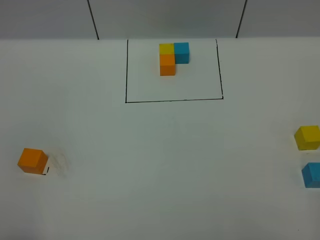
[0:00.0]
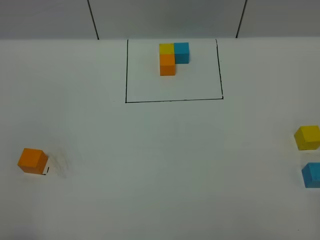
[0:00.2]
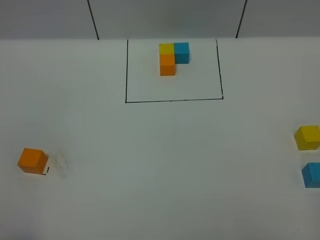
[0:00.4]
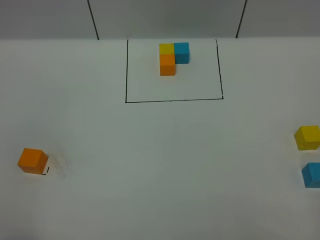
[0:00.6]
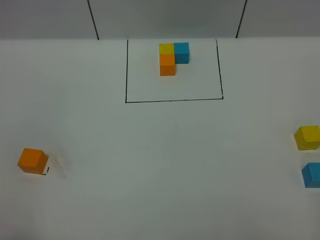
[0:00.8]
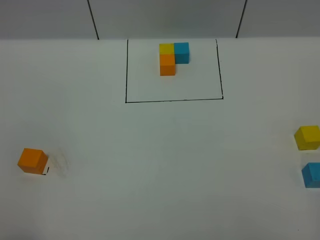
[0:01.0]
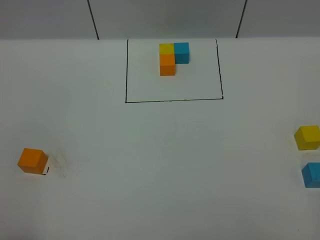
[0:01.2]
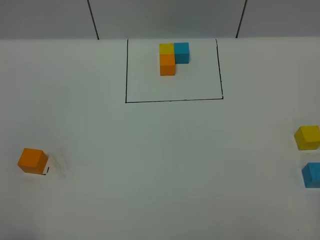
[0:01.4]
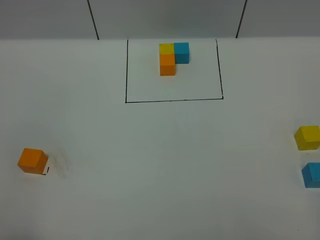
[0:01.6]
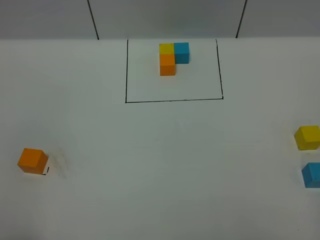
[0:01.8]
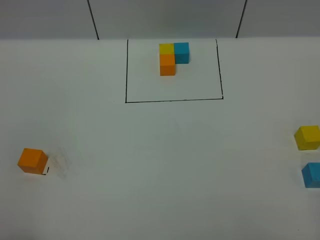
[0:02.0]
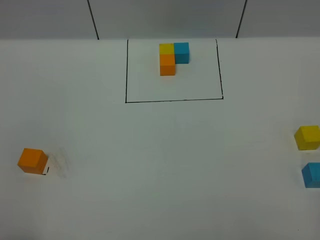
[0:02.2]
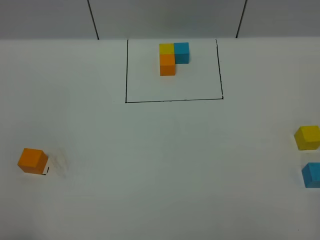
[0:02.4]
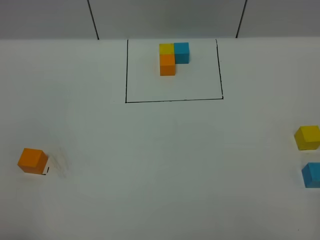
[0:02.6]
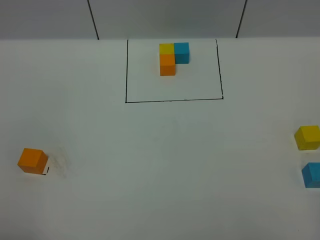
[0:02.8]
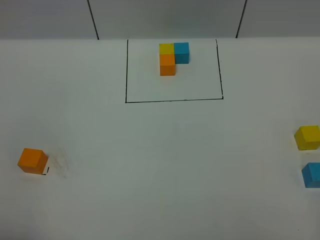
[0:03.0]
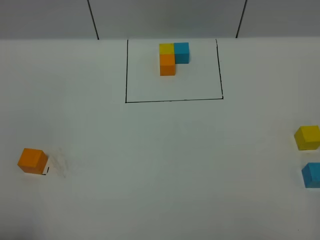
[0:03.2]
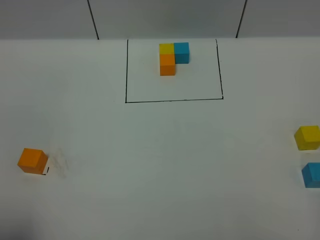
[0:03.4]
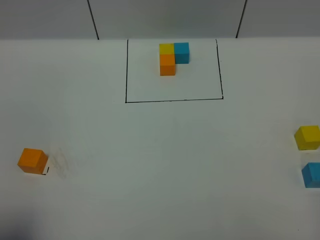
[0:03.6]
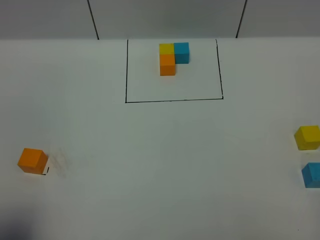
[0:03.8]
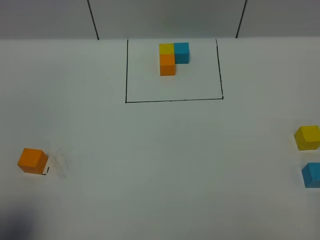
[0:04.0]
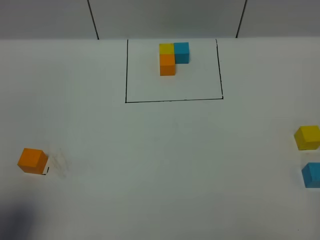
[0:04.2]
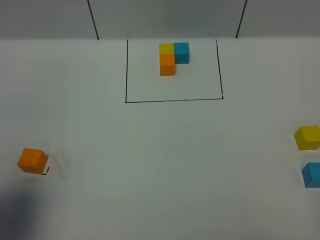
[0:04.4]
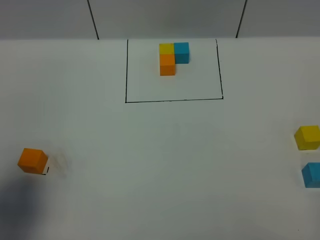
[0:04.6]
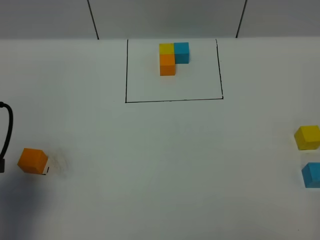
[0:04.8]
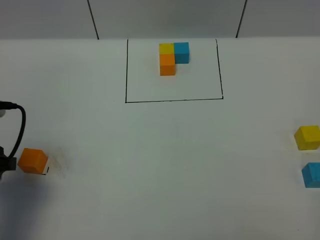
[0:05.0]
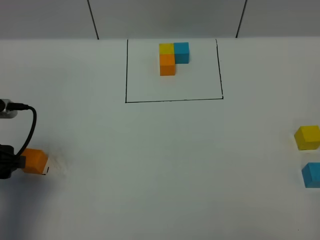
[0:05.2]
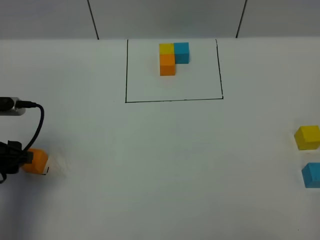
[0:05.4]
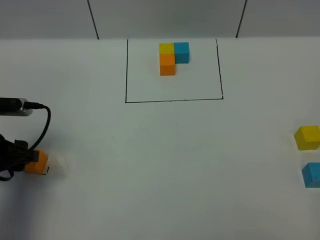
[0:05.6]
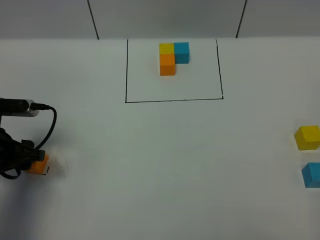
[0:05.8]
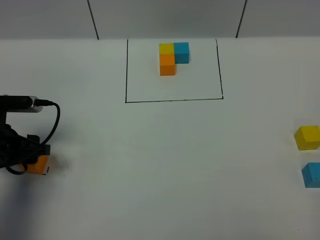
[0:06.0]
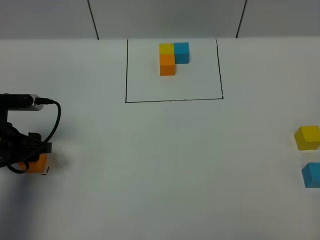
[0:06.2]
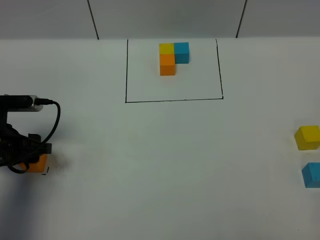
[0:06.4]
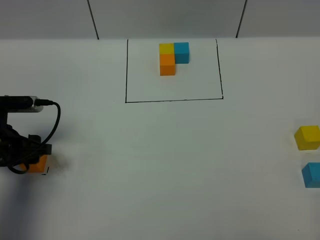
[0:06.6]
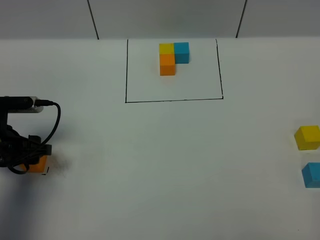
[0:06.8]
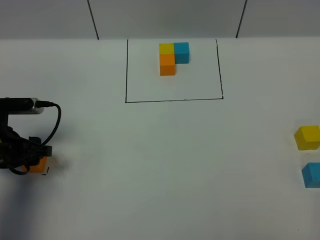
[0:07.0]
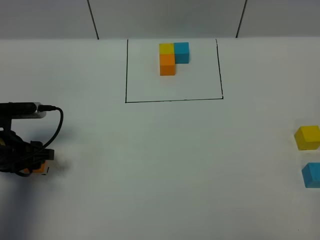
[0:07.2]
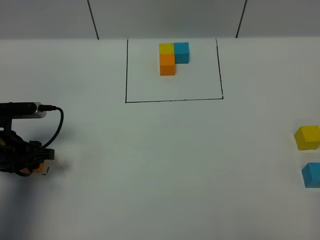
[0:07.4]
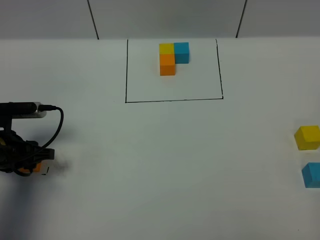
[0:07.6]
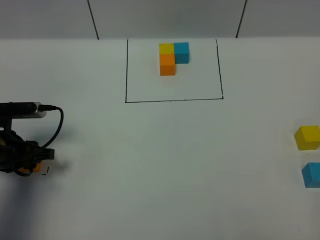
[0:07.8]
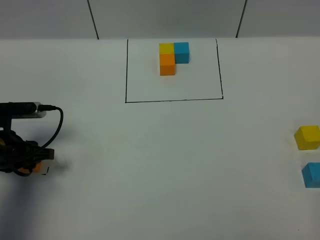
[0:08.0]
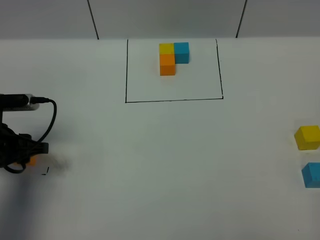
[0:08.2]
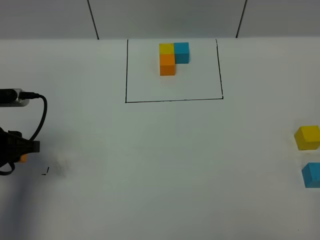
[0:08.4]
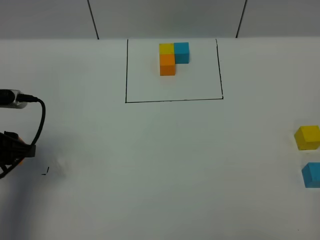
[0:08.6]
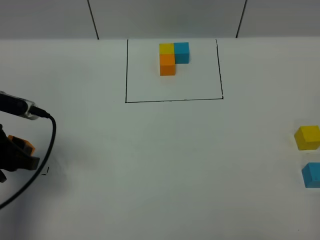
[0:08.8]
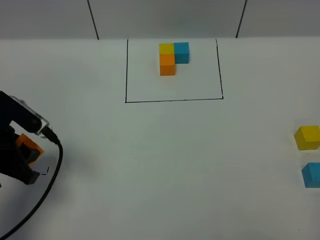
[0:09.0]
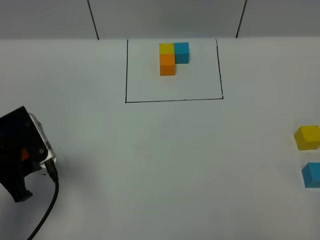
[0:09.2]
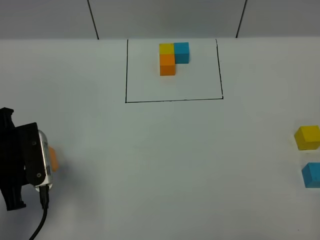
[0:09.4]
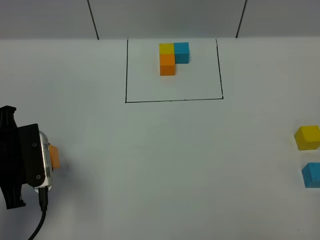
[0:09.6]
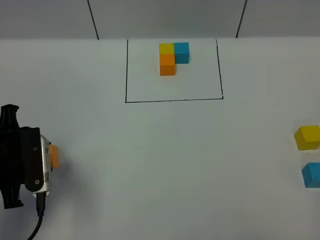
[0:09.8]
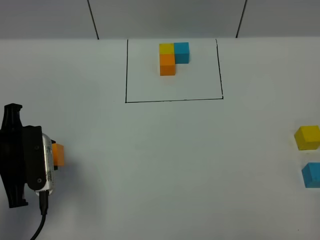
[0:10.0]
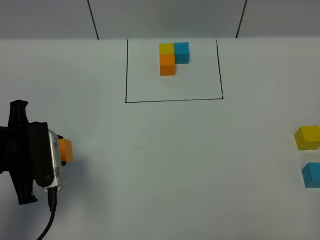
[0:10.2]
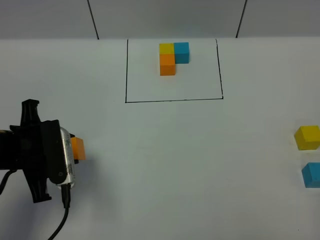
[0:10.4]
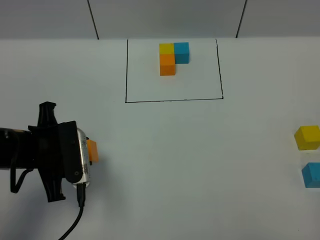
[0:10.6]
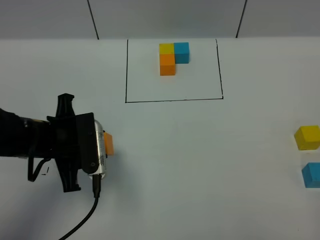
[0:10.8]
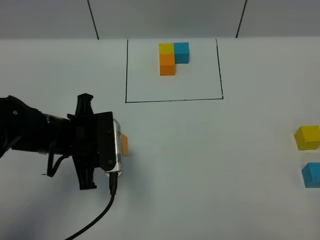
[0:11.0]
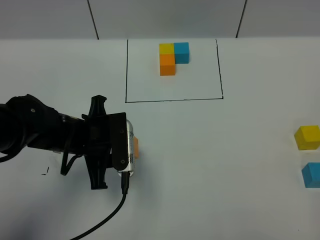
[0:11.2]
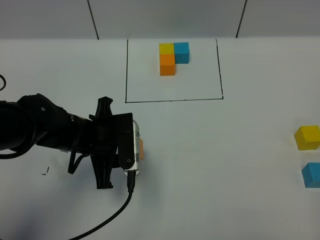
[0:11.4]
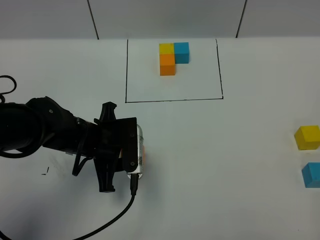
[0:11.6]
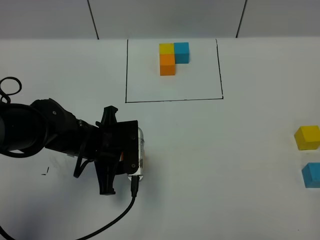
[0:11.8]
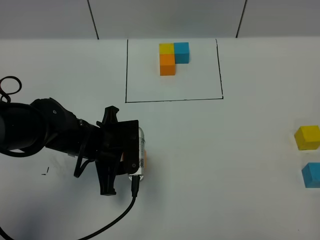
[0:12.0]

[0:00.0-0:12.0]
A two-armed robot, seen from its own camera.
Task of the whole recording: According to the building block template in front, assemble the scattered blocks together.
0:00.0 to 0:01.6: The two grippers keep their place.
0:03.0 to 0:04.4: The left gripper goes about 10 cm forward.
0:04.4 to 0:06.0: The left gripper moves downward and forward, approximately 20 cm.
0:06.0 to 0:07.6: There are only small adjustments of the grippers.
0:07.6 to 0:09.0: The left gripper goes some 10 cm upward.
0:10.4 to 0:12.0: The left gripper moves to the right and downward, roughly 10 cm.

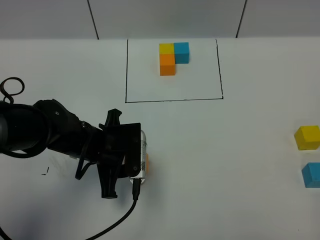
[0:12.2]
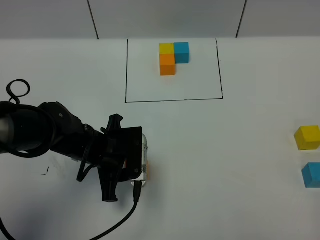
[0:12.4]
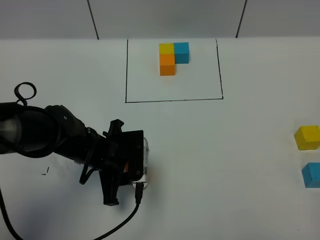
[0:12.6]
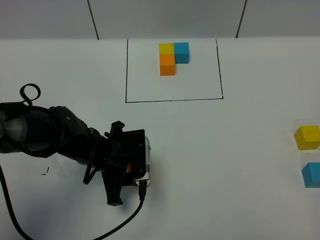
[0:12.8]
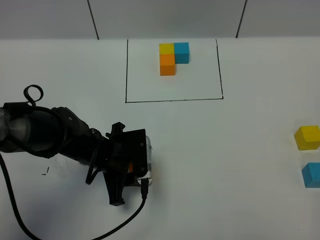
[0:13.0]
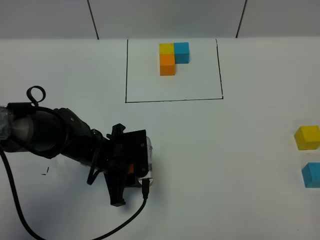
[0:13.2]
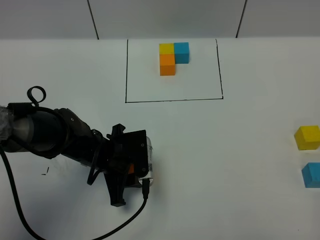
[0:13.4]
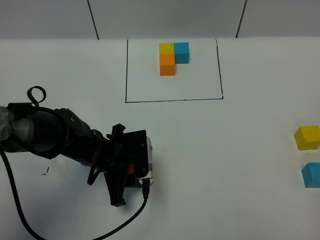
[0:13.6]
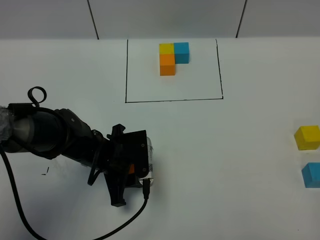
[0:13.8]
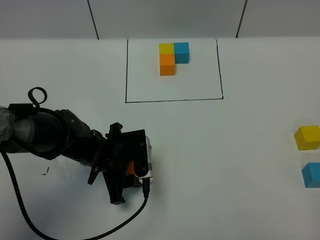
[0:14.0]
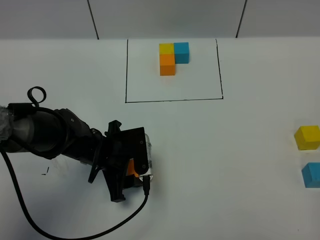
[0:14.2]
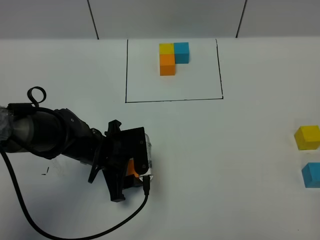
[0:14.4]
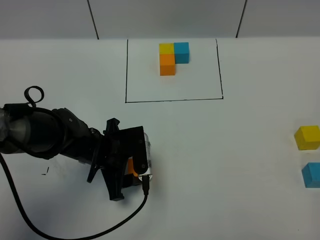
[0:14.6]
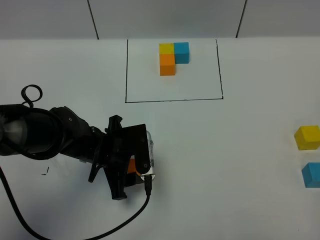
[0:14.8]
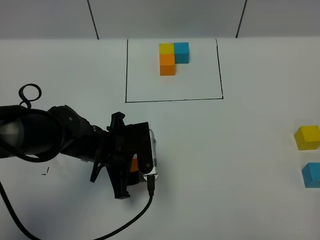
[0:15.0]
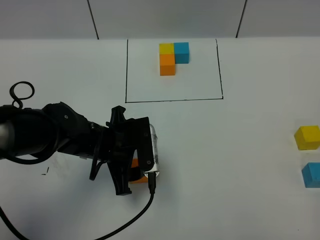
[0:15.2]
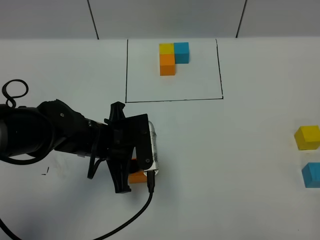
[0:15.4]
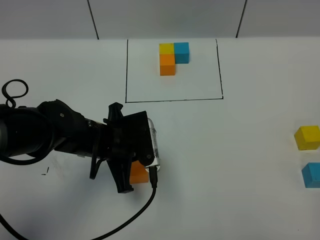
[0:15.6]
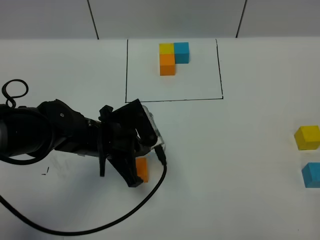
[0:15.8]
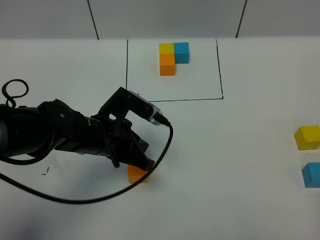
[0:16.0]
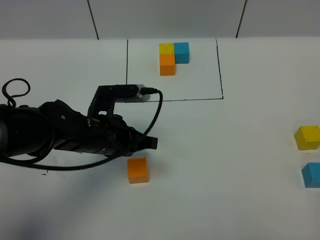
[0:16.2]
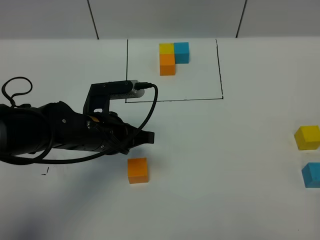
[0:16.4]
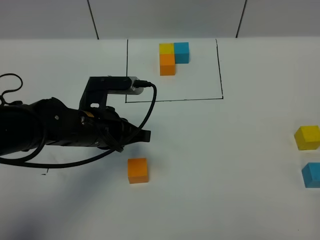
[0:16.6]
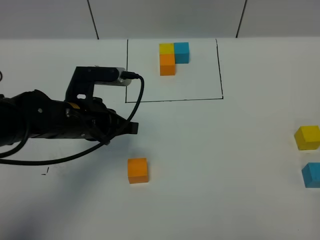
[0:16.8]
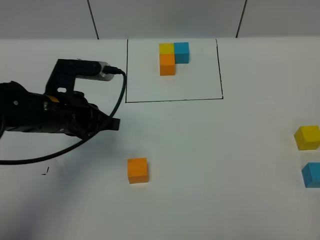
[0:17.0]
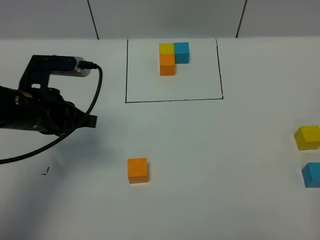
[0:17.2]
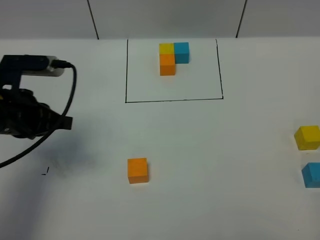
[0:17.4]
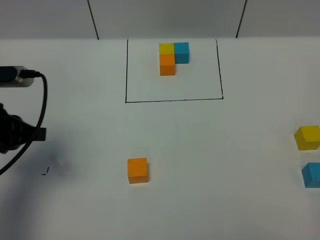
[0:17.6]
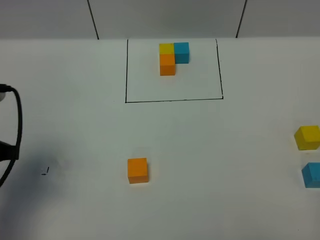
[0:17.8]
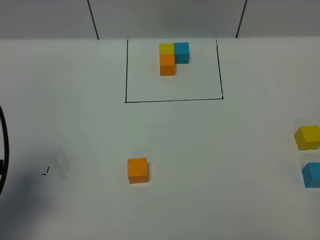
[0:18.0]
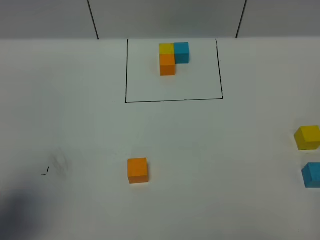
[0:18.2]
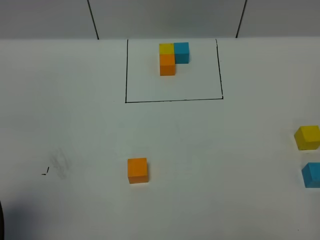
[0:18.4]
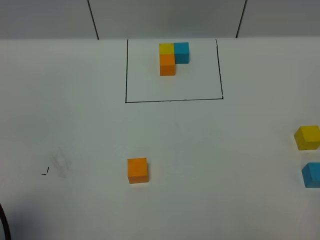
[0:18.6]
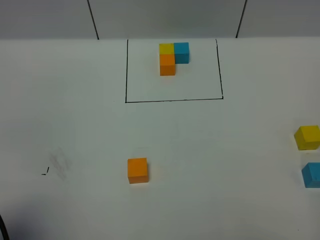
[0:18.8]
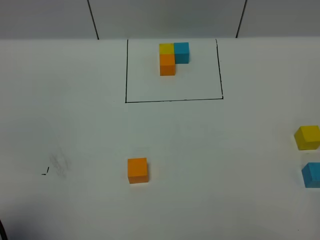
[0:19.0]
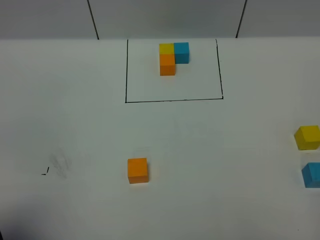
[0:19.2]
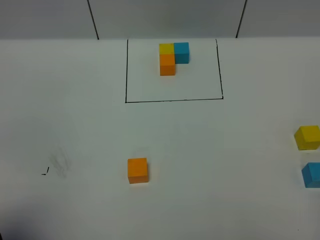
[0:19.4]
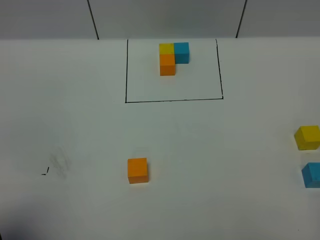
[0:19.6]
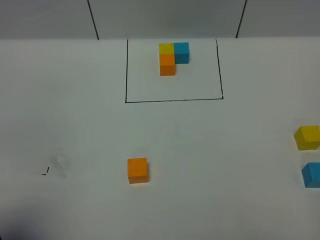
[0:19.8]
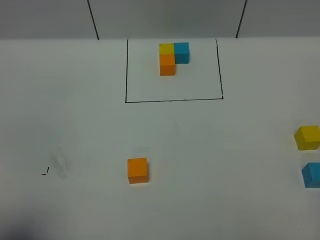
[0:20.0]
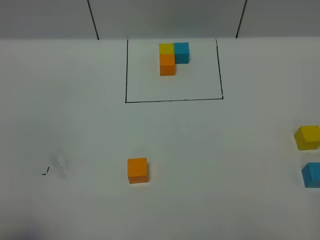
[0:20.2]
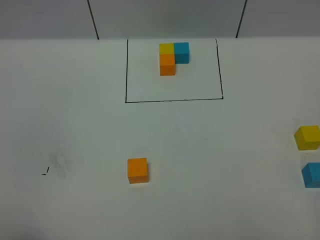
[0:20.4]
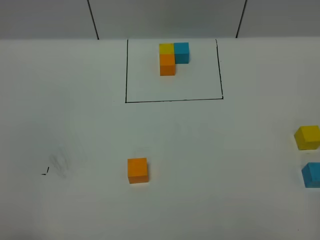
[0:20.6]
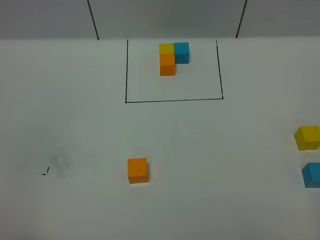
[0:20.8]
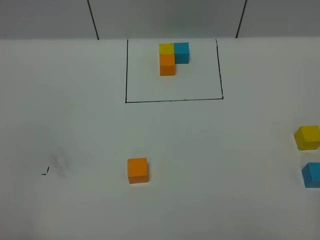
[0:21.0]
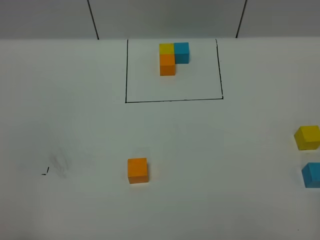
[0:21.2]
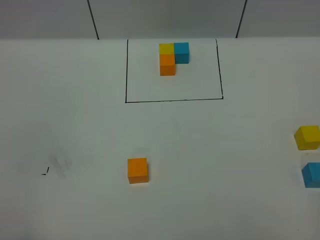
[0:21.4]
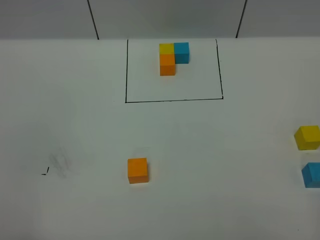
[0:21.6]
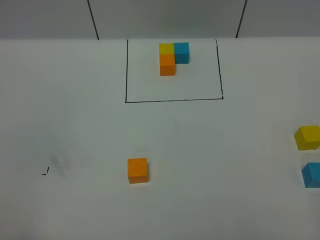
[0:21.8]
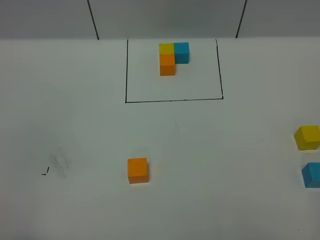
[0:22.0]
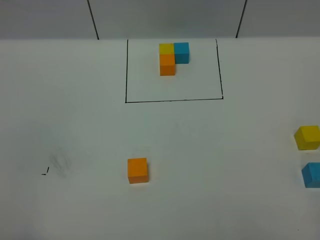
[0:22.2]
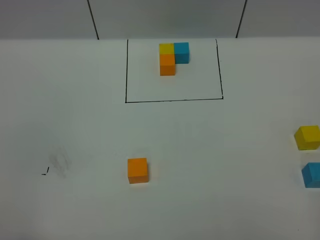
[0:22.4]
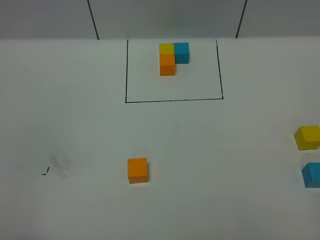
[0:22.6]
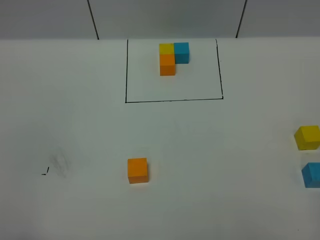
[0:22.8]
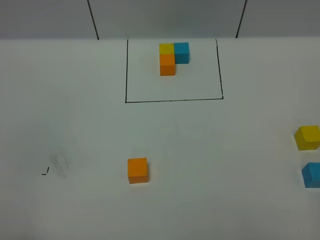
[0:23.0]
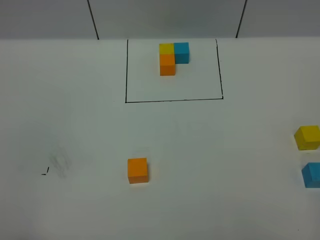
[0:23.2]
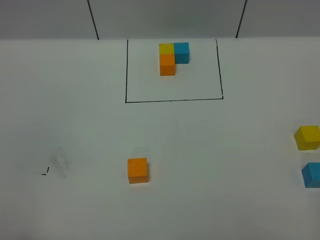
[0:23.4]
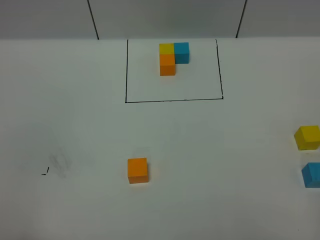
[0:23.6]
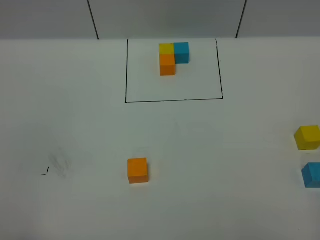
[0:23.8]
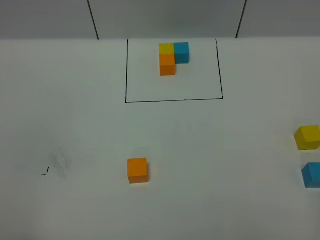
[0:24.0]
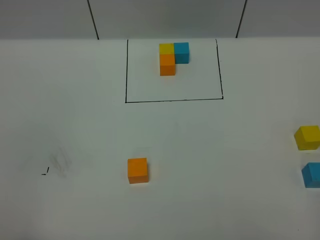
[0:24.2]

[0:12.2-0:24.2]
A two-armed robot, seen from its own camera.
Task of the whole recording: According to the building block template in front, assemble the scattered blocks together.
Step, 0:12.2 to 0:16.2: Put the orange cube in the center of the table.
0:12.2 to 0:13.8: There are only small adjustments of the grippers.
0:13.8 to 0:15.2: The left gripper moves upward, about 5 cm.
0:15.2 to 0:16.6: The left gripper closes its fingers.
0:16.6 to 0:18.2: The left gripper heads to the left, backward and upward, covering about 25 cm.
0:18.2 to 0:19.8: The left gripper travels backward by about 5 cm.
0:19.8 to 0:21.2: The left gripper shifts roughly 5 cm backward.
0:21.2 to 0:24.2: The two grippers keep their place.
